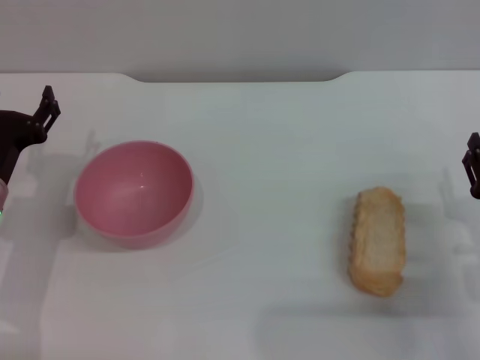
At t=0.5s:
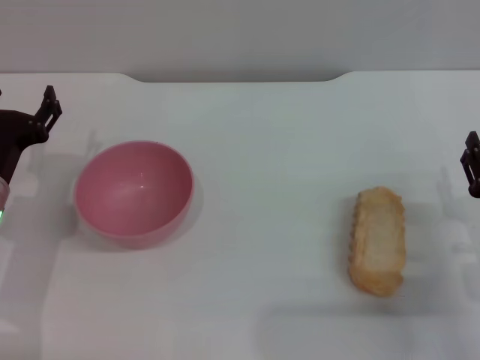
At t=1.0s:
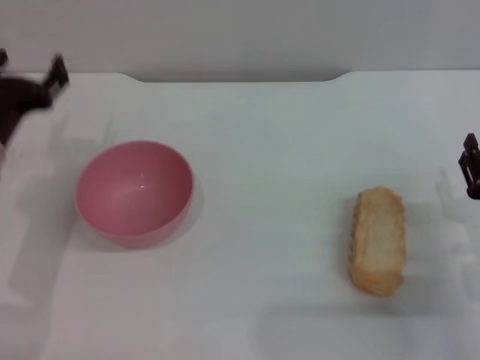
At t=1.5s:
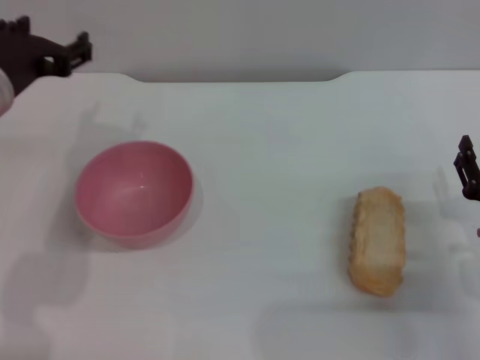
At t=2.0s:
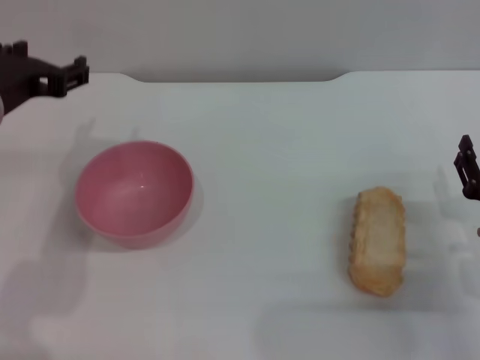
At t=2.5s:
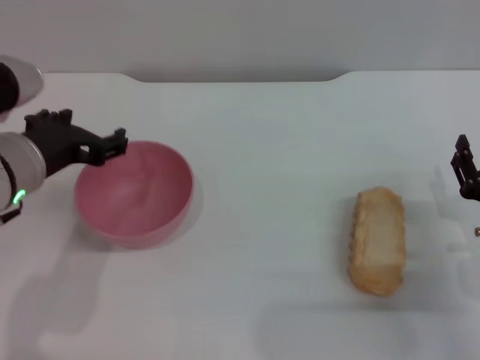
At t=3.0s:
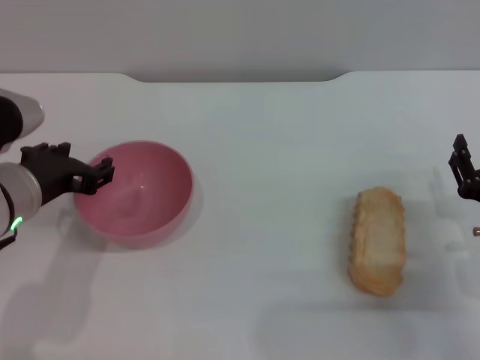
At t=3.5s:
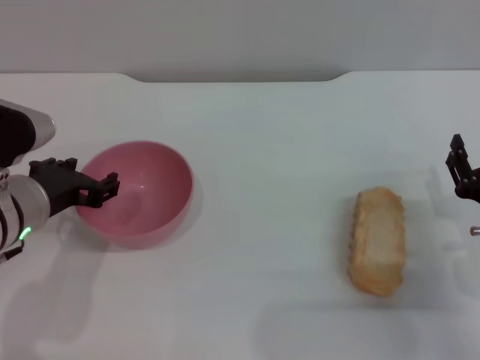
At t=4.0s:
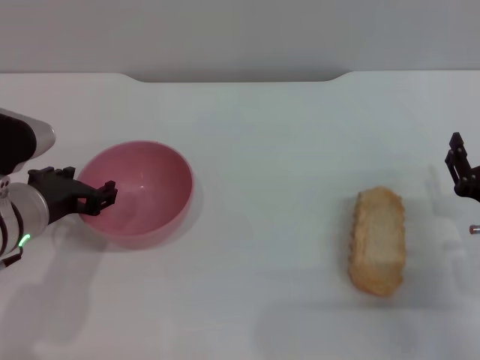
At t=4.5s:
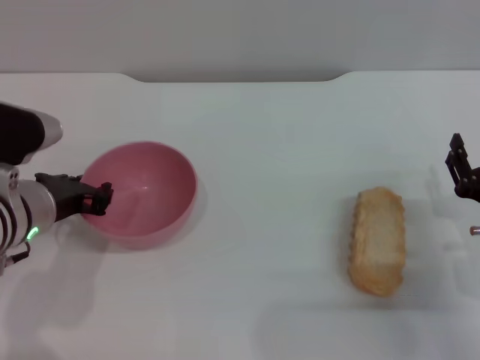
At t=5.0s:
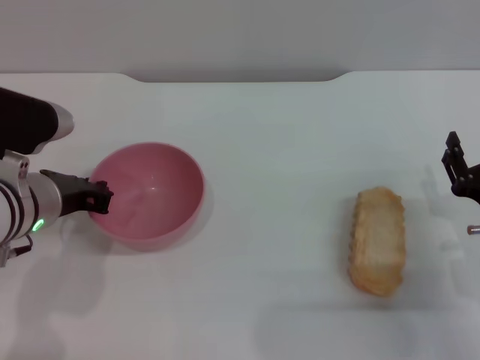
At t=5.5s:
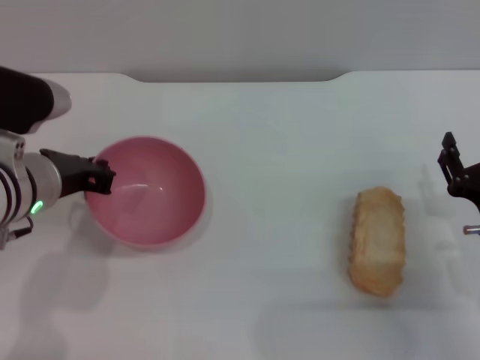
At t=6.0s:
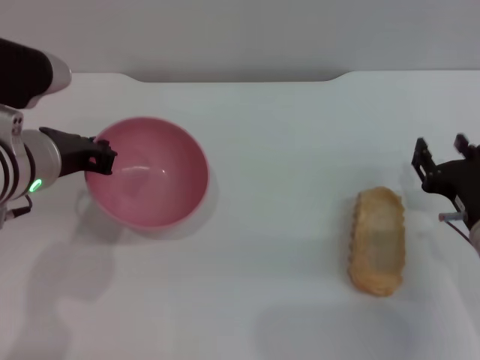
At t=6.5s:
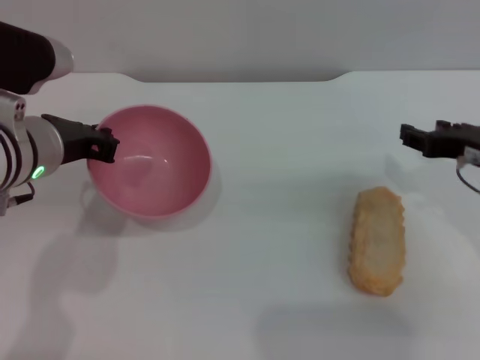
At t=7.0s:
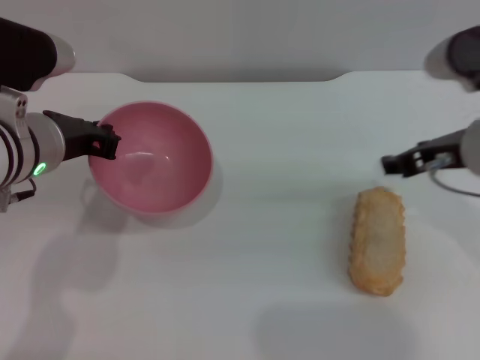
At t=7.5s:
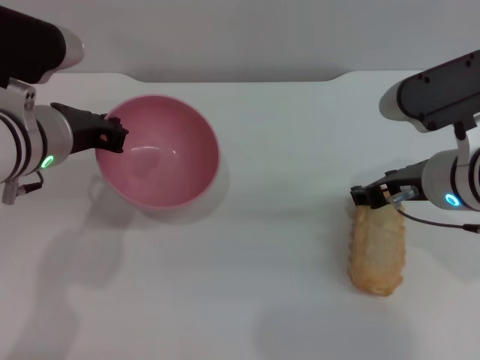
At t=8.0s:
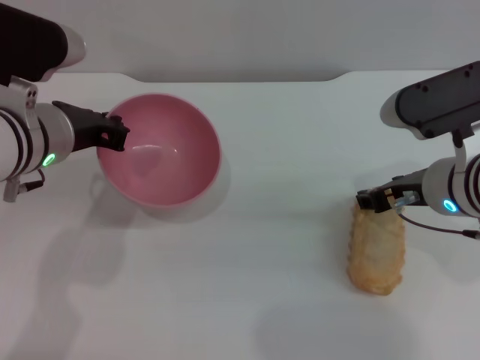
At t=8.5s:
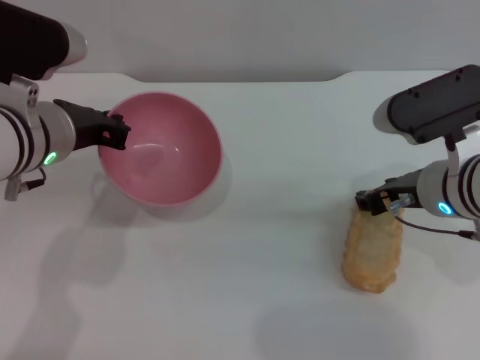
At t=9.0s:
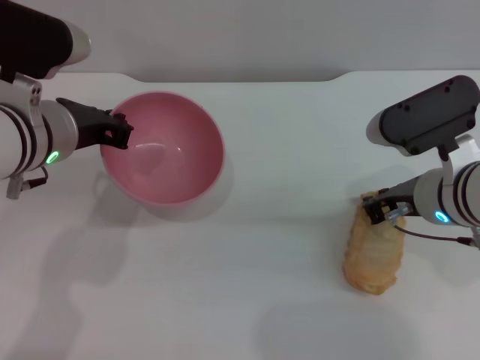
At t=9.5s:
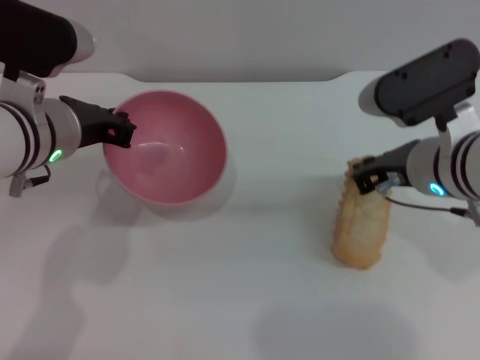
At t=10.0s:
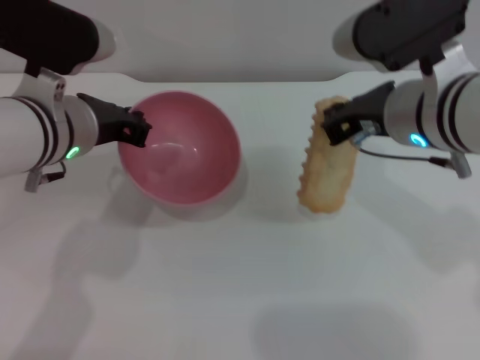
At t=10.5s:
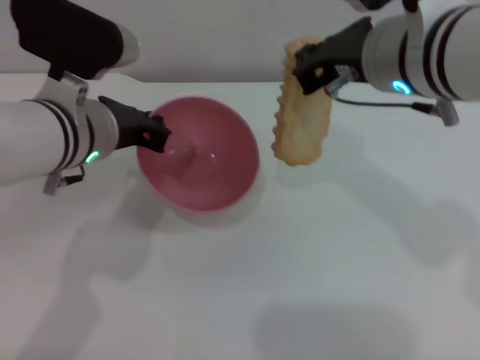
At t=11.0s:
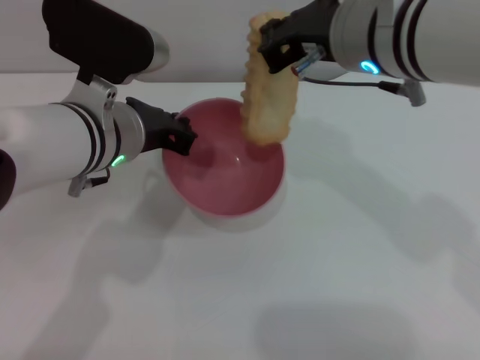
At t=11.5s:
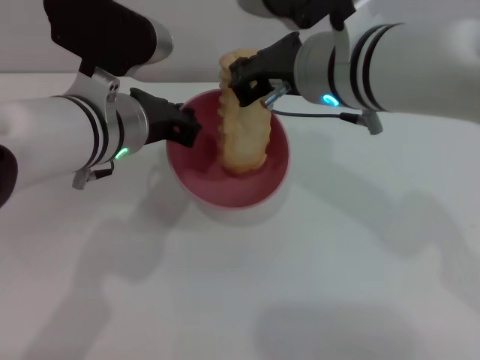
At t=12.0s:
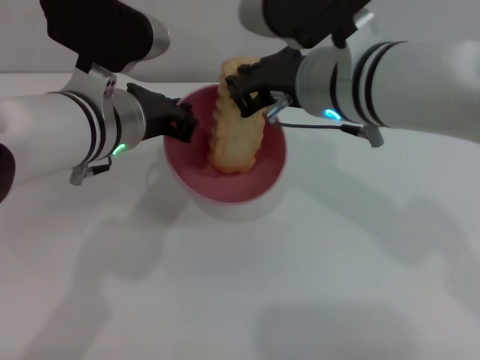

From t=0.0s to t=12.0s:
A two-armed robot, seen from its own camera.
Task of the whole recording: put the bread into the pink bowl and pour it out repeatedly.
Step, from t=0.0s to t=8.0s: Pick up the bowl with the left gripper.
Step, from t=8.5s to t=9.5s: Pick up the bread with the right gripper.
From t=0.0s to t=2.0s: The left gripper is displaced upward by about 15 cm.
From t=2.0s to t=4.0s: The left gripper travels downward by roughly 10 cm.
From t=4.0s to t=6.0s: The left gripper shifts by some 5 cm, and closes up.
From t=6.0s to t=8.0s: The right gripper heads upward and to the left, covering roughly 10 cm.
From t=8.0s to t=10.0s: The right gripper goes some 5 cm upward, and closes.
From t=10.0s to t=12.0s: The right gripper moves to the left, some 5 cm.

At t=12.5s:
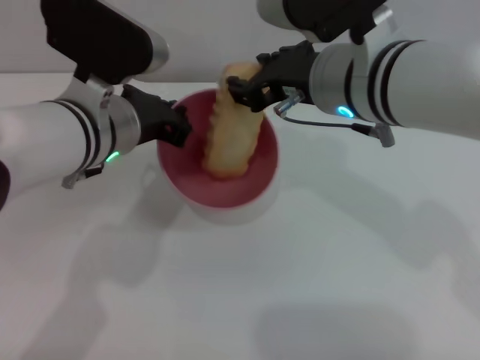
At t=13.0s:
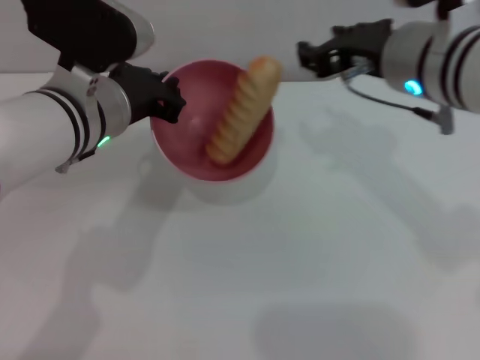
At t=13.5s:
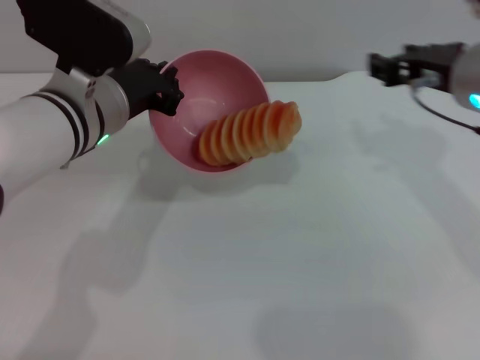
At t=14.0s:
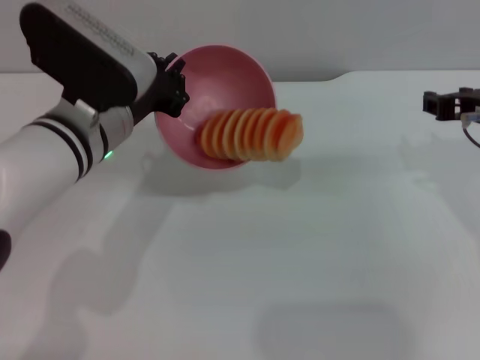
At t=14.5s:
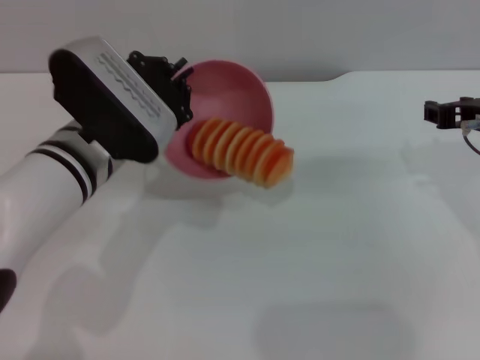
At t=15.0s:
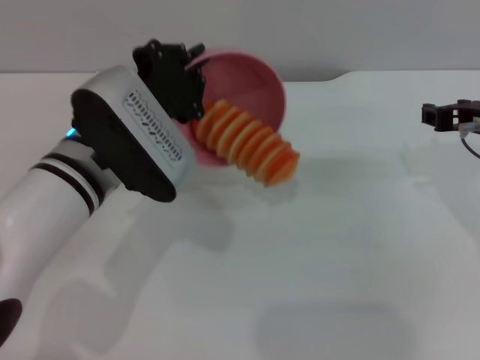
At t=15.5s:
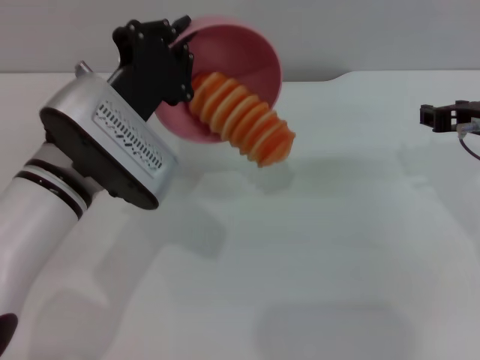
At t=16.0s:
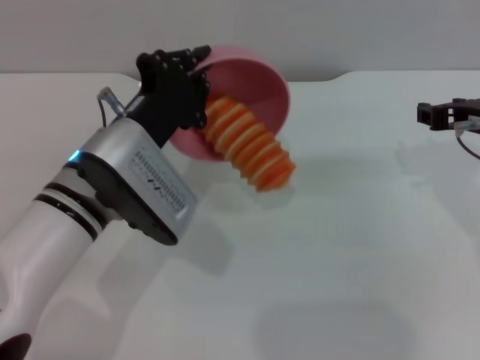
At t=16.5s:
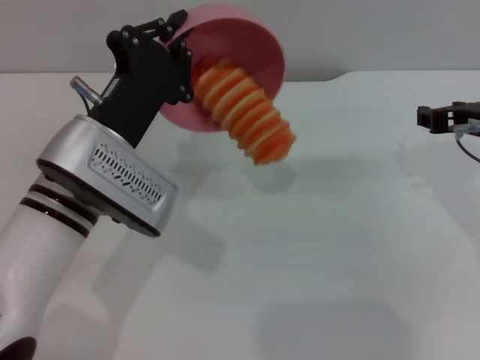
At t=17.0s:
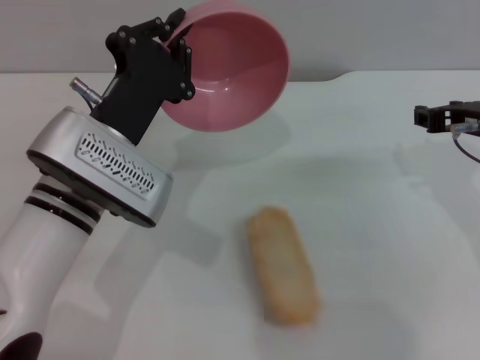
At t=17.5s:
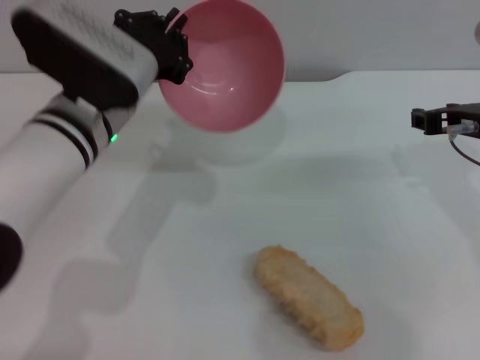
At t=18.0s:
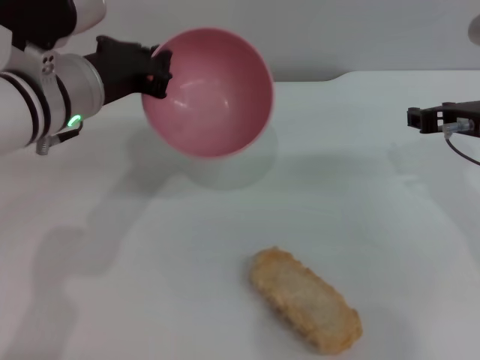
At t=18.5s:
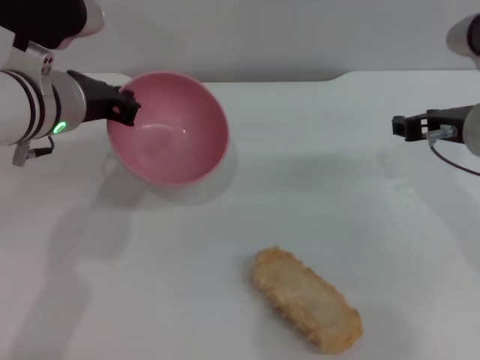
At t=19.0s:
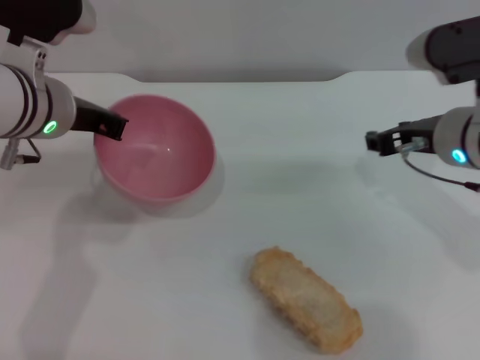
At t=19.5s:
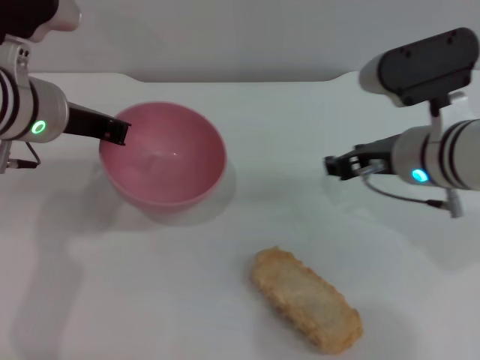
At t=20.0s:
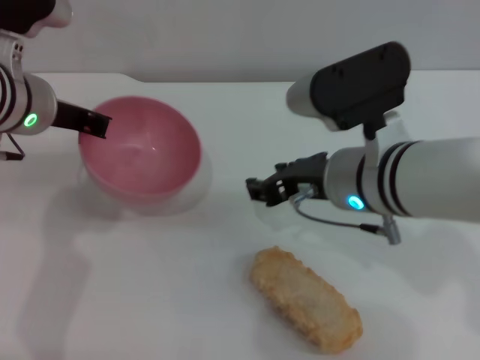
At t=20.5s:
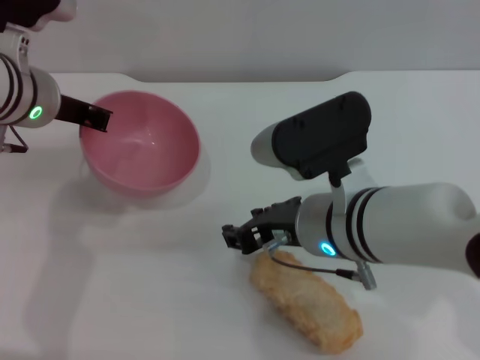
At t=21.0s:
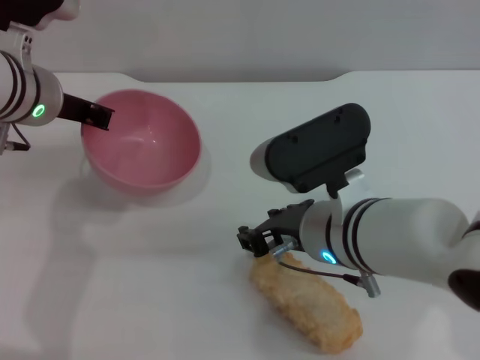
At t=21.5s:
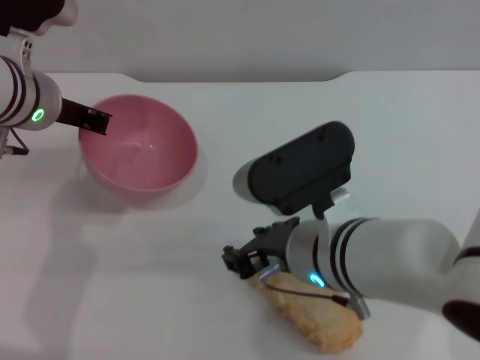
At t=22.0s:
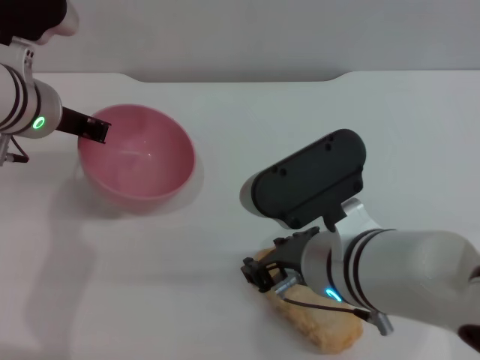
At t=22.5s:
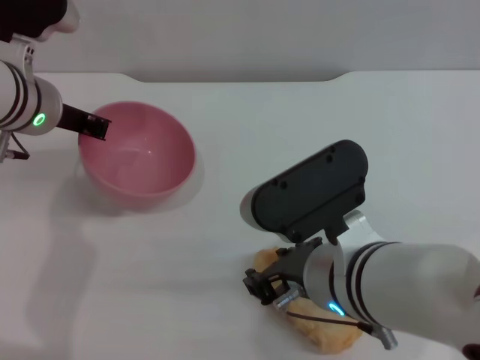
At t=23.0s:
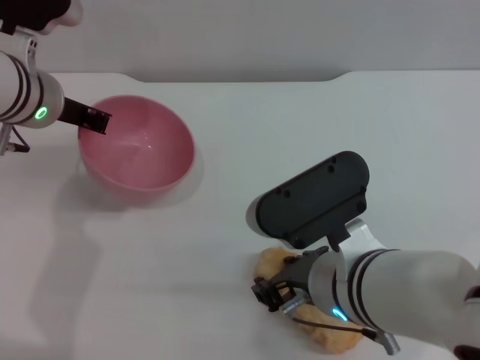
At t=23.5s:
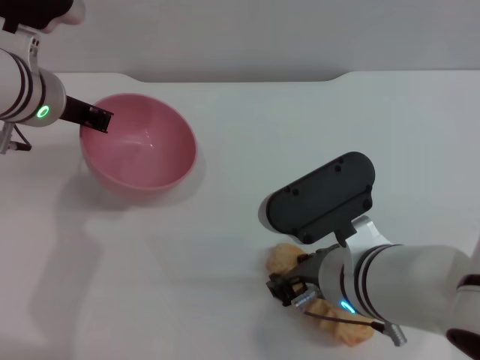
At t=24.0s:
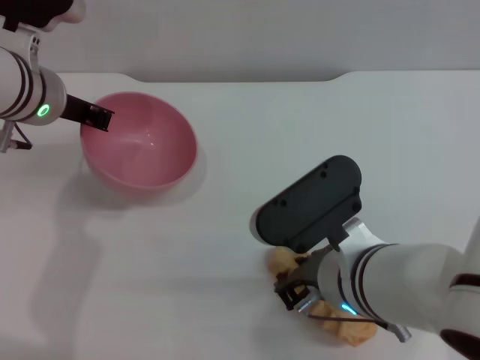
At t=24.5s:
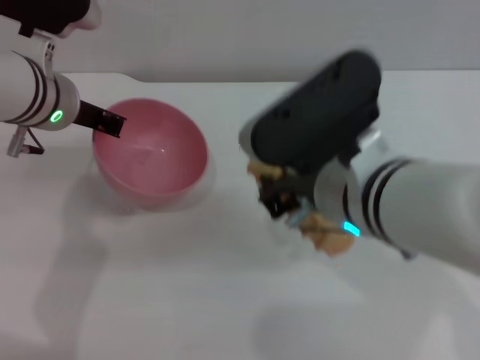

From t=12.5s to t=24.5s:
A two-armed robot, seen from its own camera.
Task of the whole recording: put the bread into the pink bowl and pour it out repeatedly.
Step, from t=14.5s to t=17.0s: Pour the bread out of the bowl.
From t=12.5s to t=14.5s: The right gripper moves to the right, about 15 cm.
From t=16.5s to t=18.5s: The left gripper is displaced forward and upward by about 10 cm.
From t=18.5s to t=20.5s: The right gripper travels to the left and backward by some 15 cm.
From t=22.5s to t=24.5s: The right gripper moves upward, roughly 5 cm, and closes.

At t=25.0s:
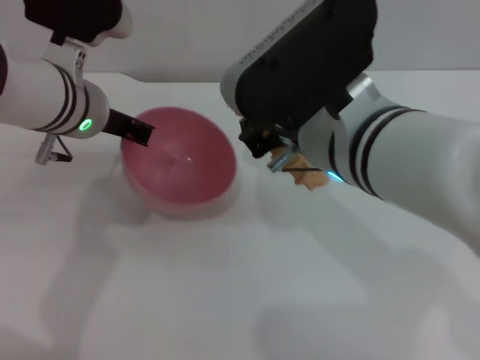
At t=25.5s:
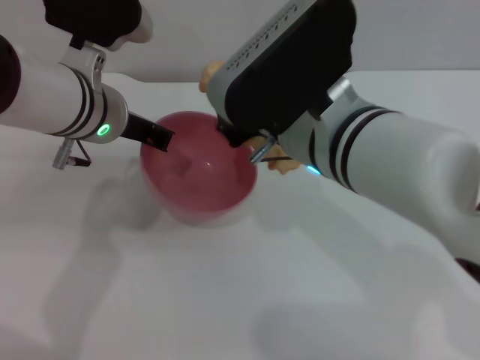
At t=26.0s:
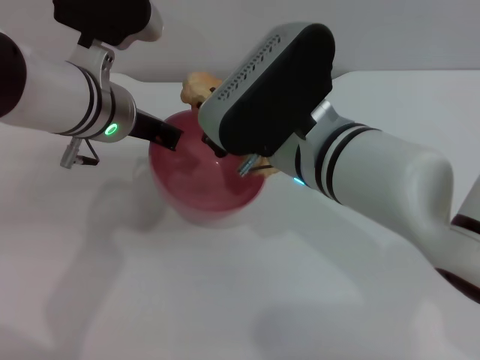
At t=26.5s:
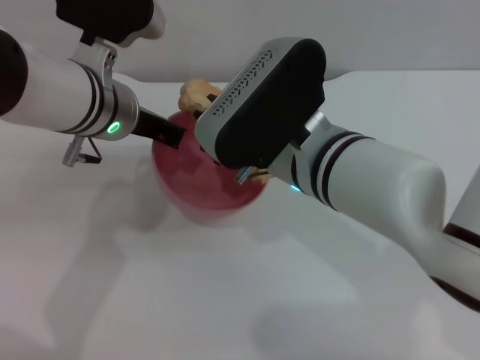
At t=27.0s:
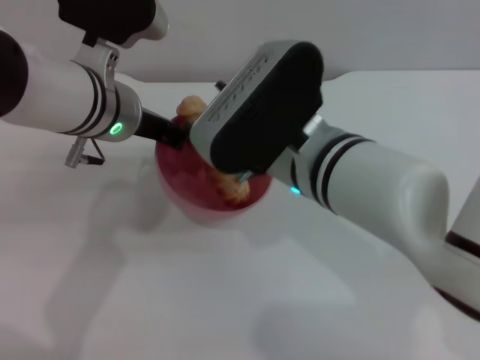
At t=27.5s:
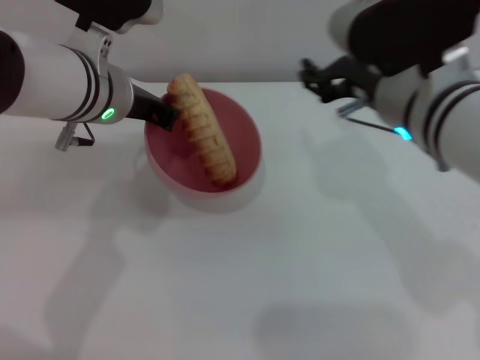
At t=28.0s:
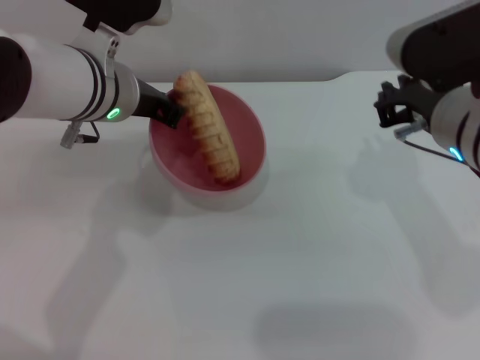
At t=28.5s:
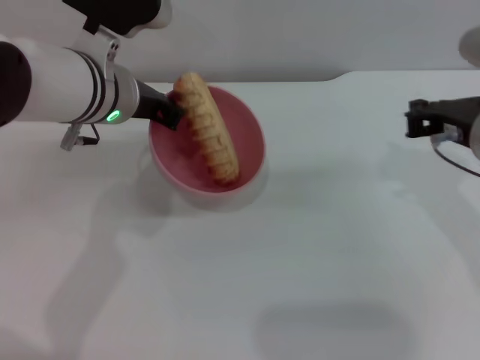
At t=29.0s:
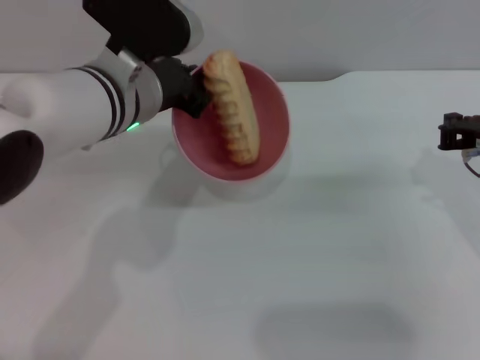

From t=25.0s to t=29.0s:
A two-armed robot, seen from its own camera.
Task of the whole recording: put the bread into the pink bowl and pour it out repeatedly.
Step, from t=25.5s to t=27.5s: Place the bread into the bowl.
From t=25.0s to t=27.0s: The right gripper opens.
From t=27.0s to t=29.0s: The right gripper is displaced to the right by about 20 cm, and closes.
